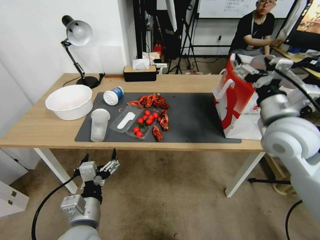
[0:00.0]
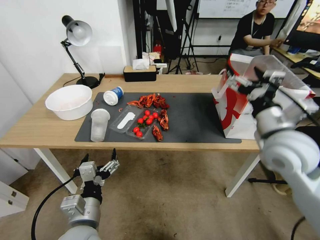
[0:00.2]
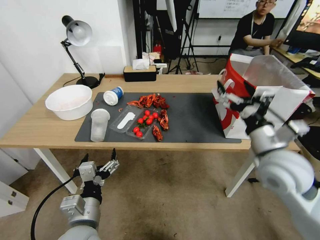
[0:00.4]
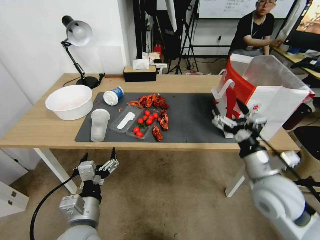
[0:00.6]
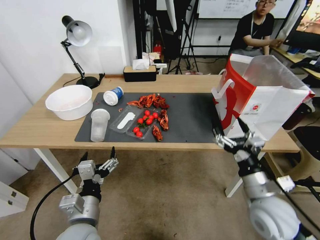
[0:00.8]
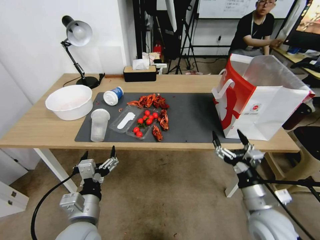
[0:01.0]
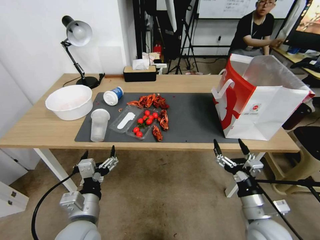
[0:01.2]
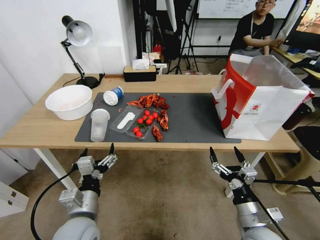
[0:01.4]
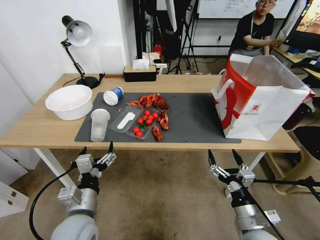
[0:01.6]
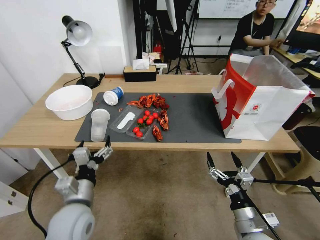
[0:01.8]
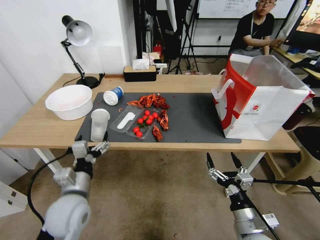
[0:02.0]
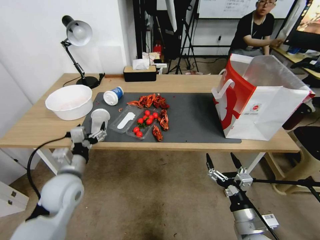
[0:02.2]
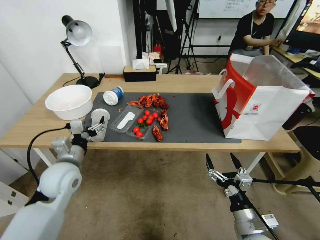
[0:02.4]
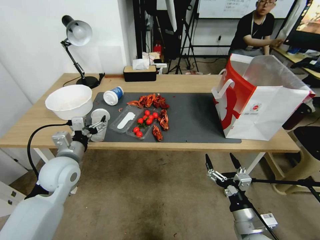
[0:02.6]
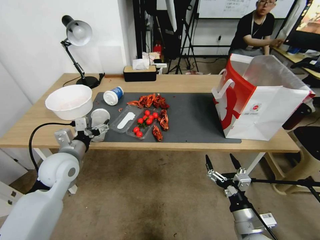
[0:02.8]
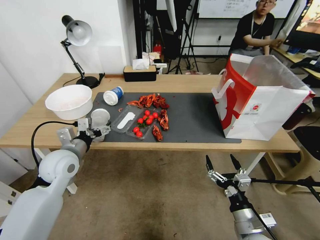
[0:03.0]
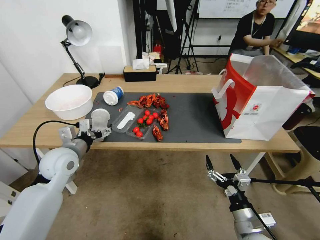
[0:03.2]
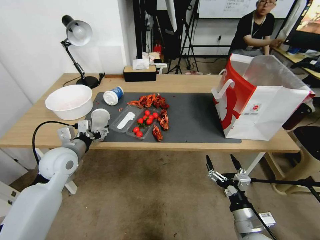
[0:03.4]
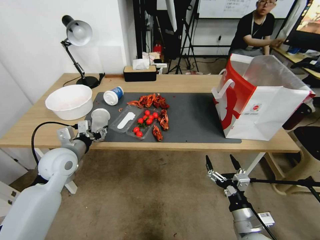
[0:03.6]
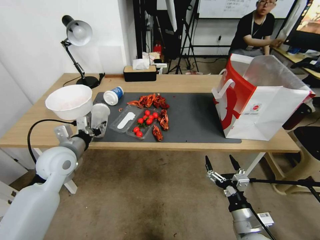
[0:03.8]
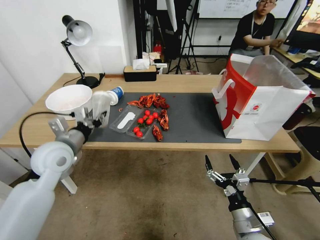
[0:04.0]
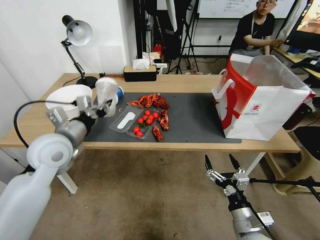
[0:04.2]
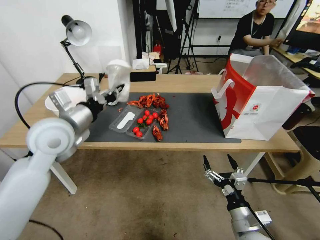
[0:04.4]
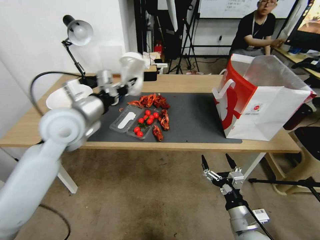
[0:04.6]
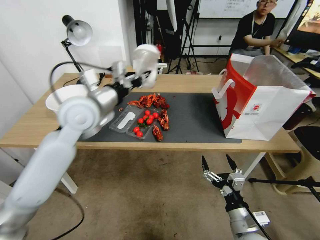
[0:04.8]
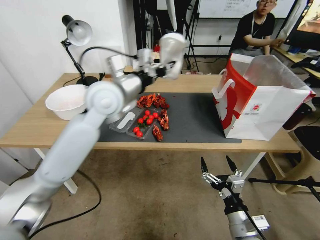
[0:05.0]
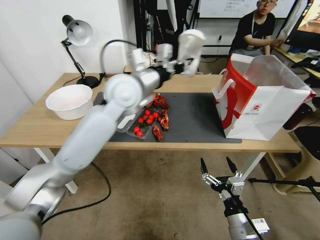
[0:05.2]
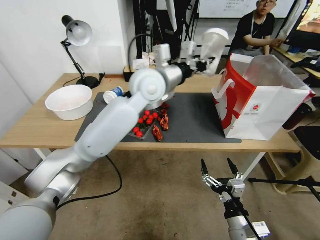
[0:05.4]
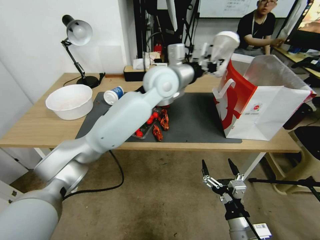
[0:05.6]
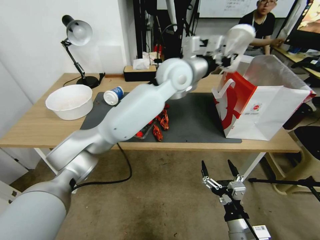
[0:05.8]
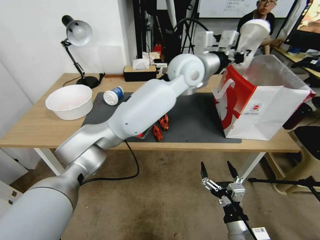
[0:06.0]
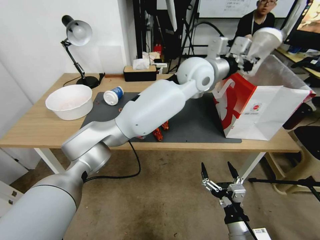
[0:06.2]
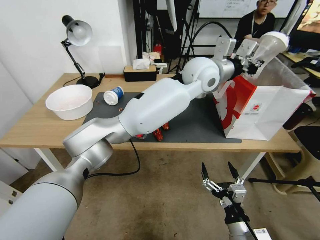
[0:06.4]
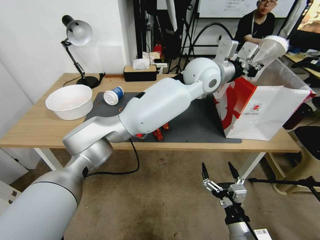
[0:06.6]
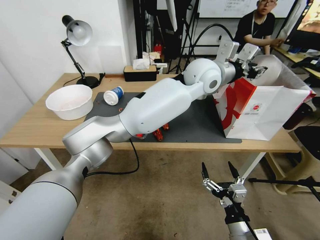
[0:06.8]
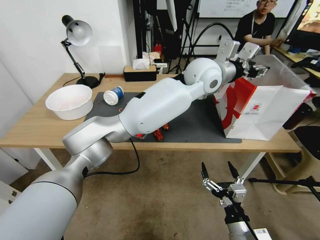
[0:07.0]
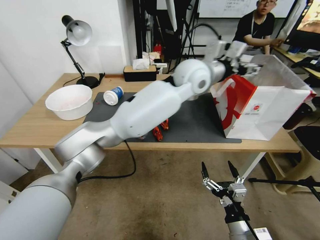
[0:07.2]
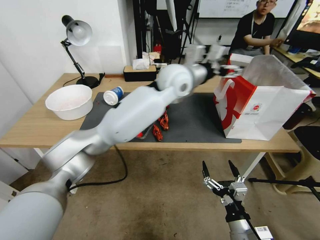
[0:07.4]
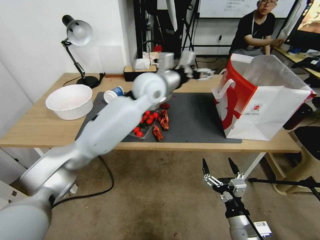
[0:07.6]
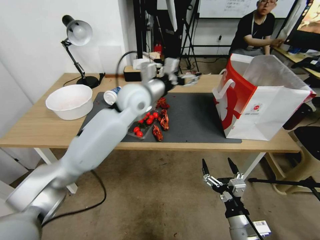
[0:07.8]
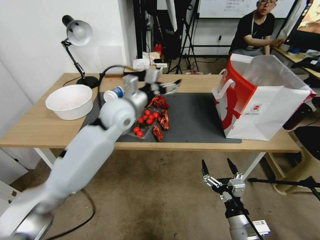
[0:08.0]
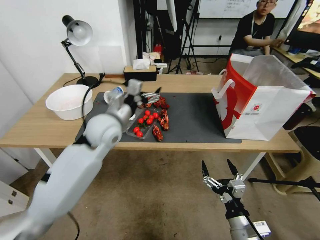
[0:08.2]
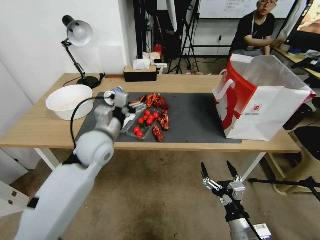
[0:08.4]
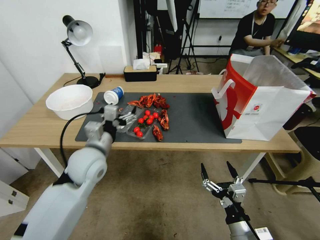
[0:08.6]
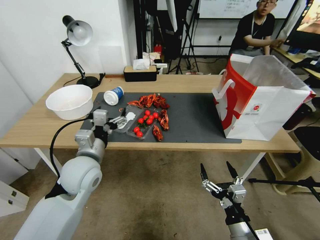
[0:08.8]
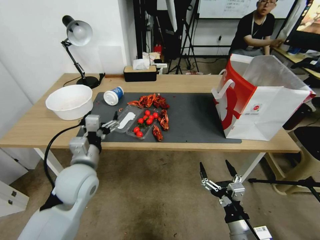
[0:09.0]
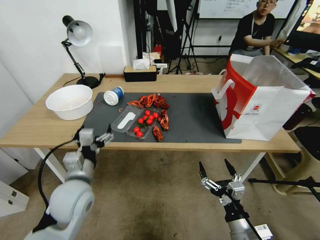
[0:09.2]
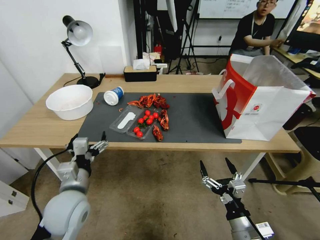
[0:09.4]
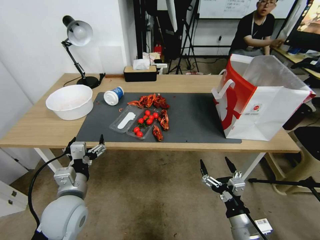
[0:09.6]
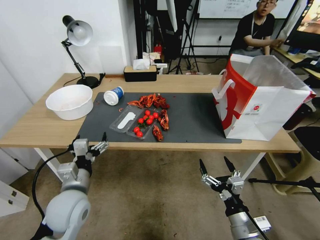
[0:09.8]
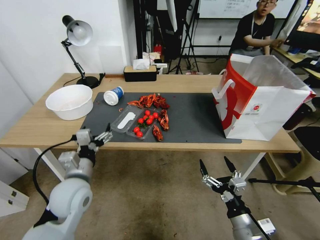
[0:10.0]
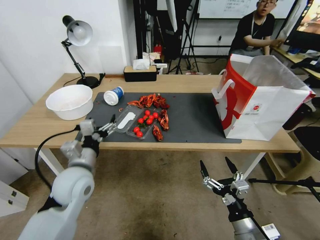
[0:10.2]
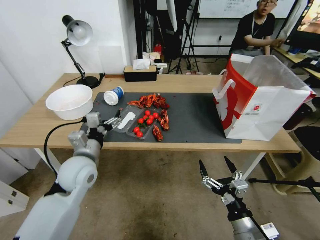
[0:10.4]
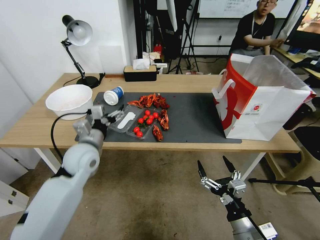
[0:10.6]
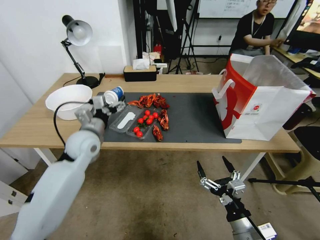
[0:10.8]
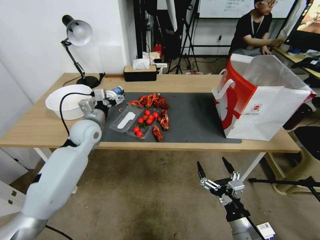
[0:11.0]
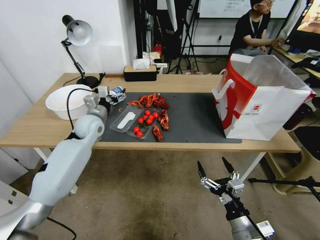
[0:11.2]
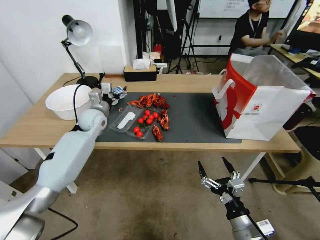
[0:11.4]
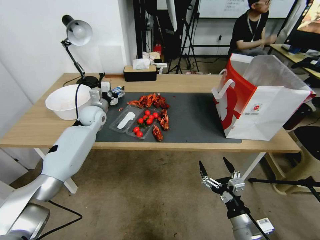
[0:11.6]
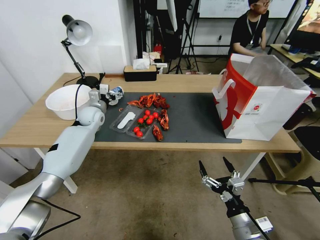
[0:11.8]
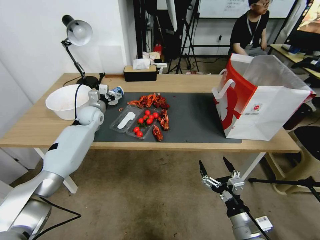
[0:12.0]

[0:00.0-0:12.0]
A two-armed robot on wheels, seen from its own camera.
0:00.0 to 0:01.6: The right gripper shifts about 30 cm downward and backward.
0:01.6 to 0:03.0: The left gripper heads forward and to the left, covering roughly 20 cm.
0:03.0 to 0:04.4: The left gripper is displaced upward by about 15 cm, and closes.
0:04.4 to 0:06.0: The left gripper shifts approximately 35 cm to the right and forward.
0:06.0 to 0:07.6: The left gripper opens.
0:07.6 to 0:09.0: The left gripper moves to the left, backward and downward, roughly 40 cm.
0:10.4 to 0:12.0: The left gripper travels forward by roughly 25 cm.

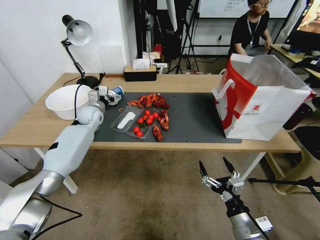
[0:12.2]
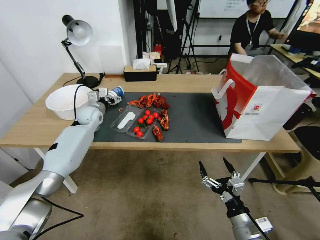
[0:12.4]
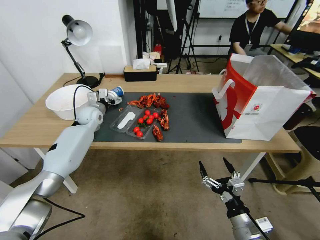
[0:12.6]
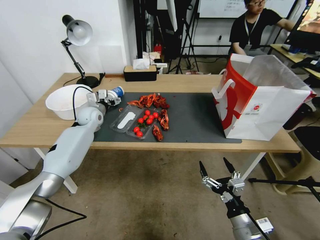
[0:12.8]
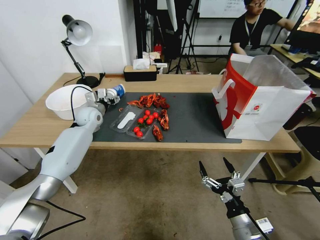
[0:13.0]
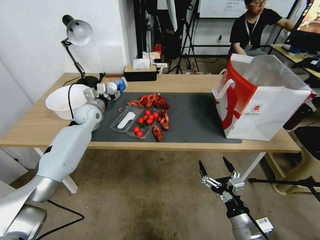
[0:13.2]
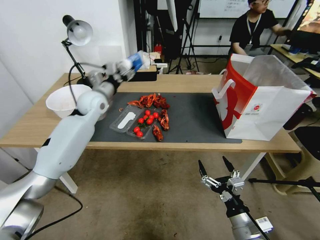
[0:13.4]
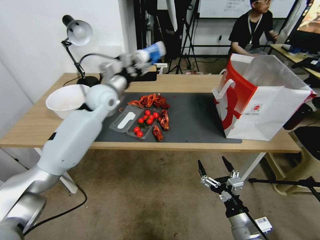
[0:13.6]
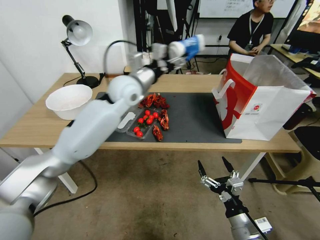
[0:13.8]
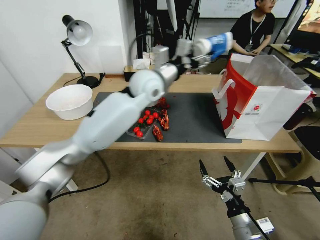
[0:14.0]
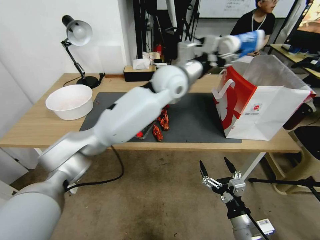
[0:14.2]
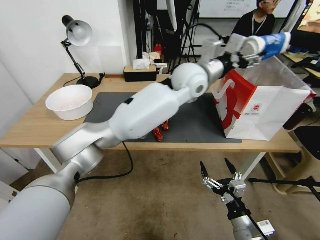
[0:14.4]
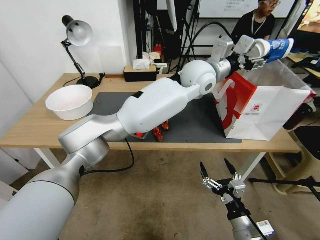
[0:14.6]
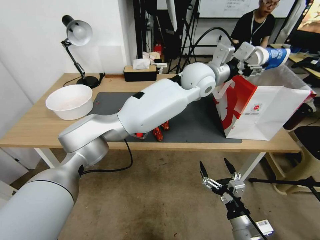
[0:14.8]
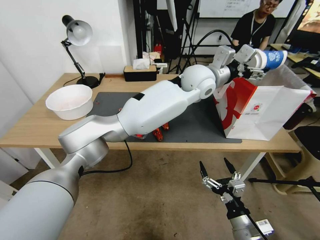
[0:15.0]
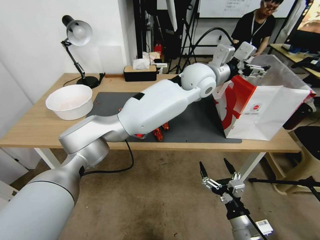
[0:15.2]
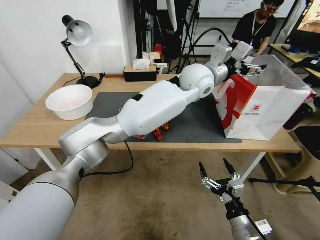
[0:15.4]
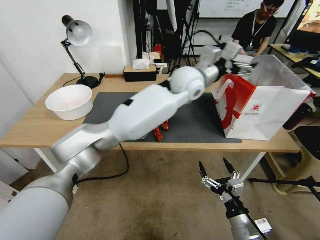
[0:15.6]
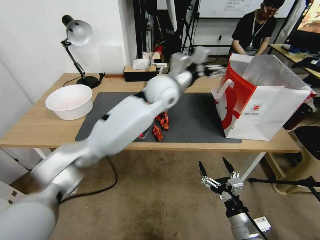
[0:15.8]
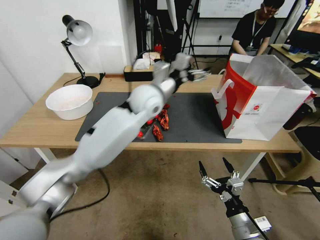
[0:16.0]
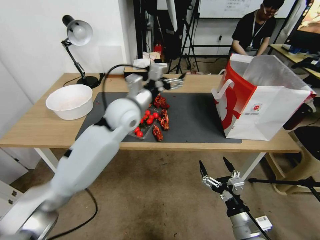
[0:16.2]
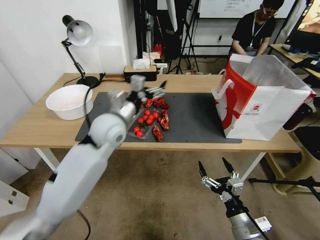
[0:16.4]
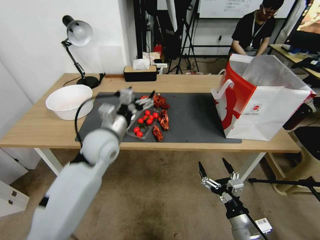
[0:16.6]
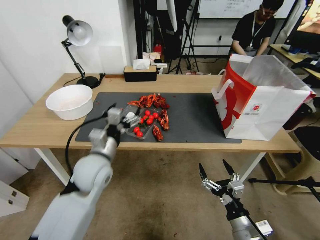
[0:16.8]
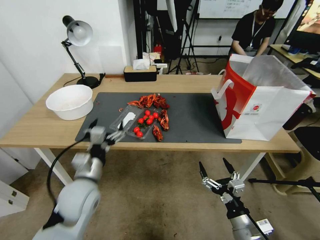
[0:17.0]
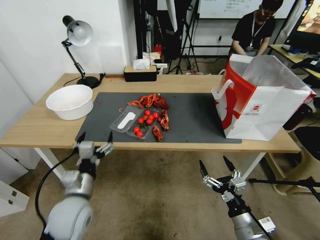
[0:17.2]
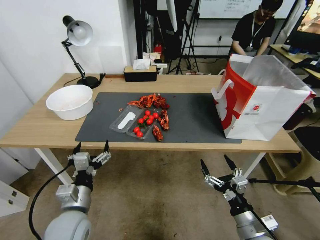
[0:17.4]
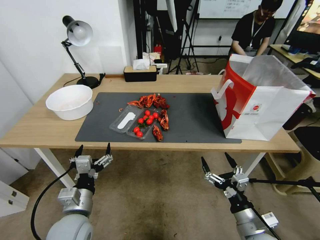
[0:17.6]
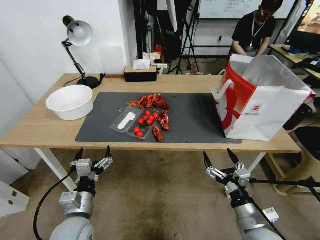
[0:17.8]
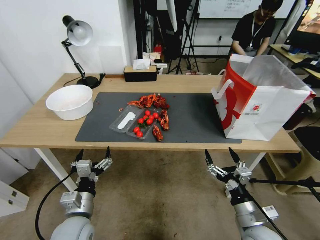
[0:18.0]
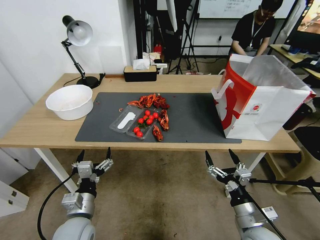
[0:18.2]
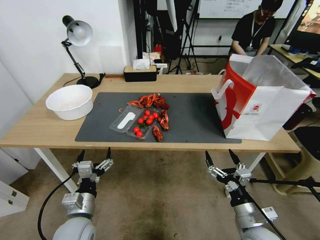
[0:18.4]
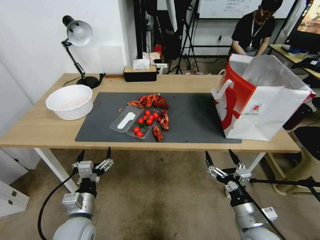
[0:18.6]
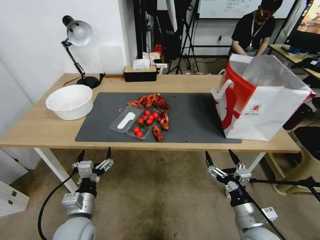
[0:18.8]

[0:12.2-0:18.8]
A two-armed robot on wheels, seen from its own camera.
0:12.2 to 0:13.8: The left gripper shifts approximately 25 cm upward and to the right, and closes up.
0:13.8 to 0:15.4: The left gripper shifts some 20 cm to the right, and opens its fingers.
0:15.4 to 0:17.2: The left gripper travels to the left, backward and downward by approximately 50 cm.
0:17.2 to 0:18.8: The left gripper heads downward, covering roughly 5 cm.
